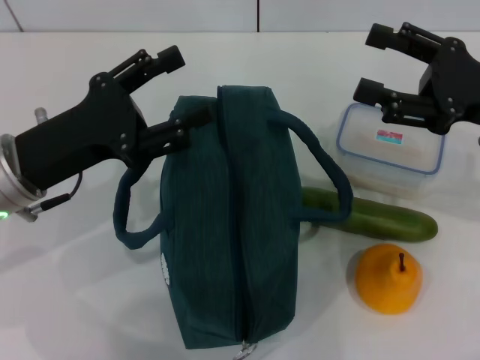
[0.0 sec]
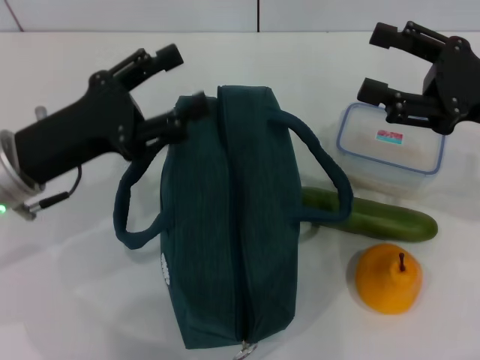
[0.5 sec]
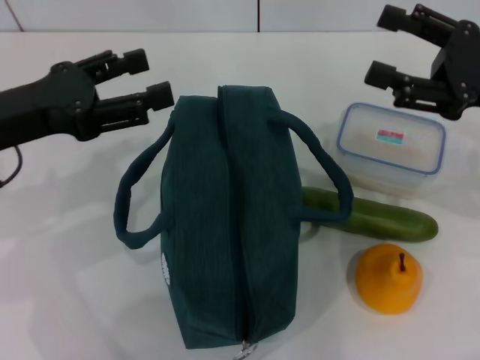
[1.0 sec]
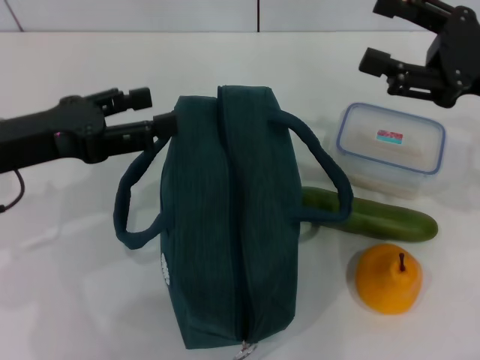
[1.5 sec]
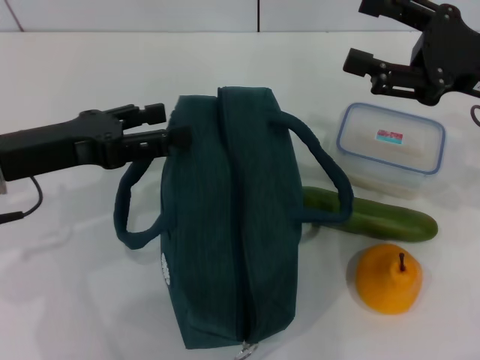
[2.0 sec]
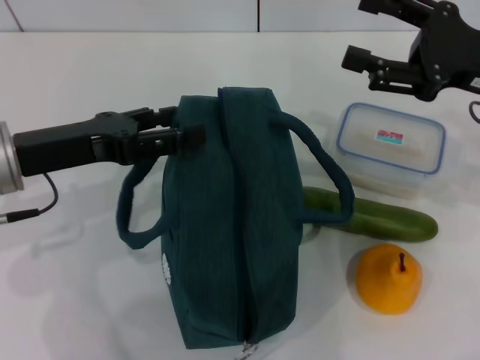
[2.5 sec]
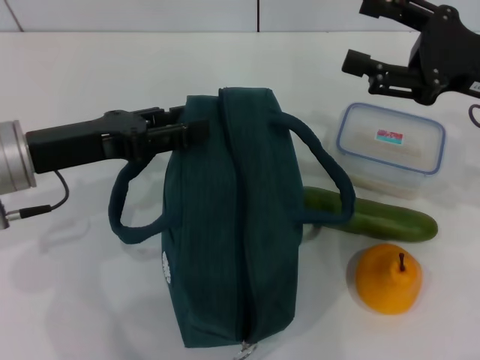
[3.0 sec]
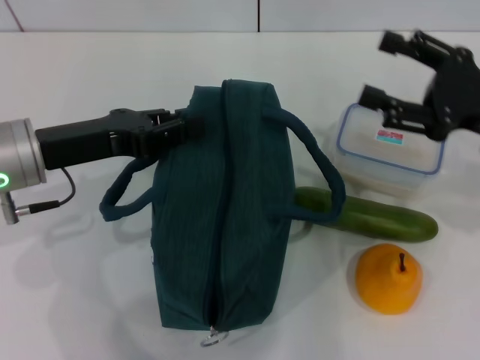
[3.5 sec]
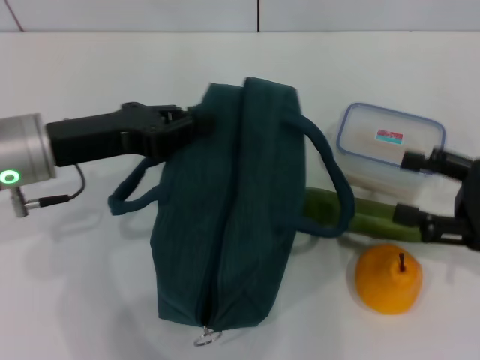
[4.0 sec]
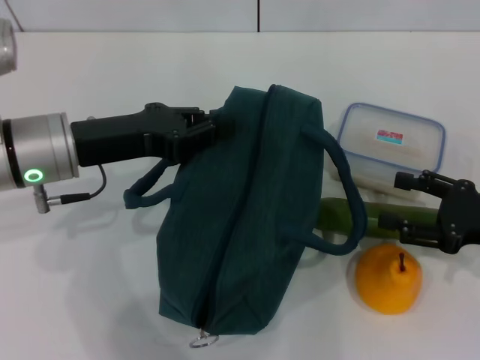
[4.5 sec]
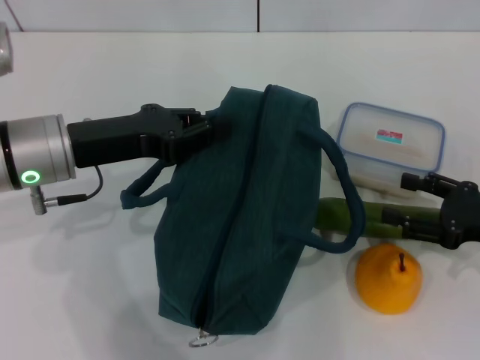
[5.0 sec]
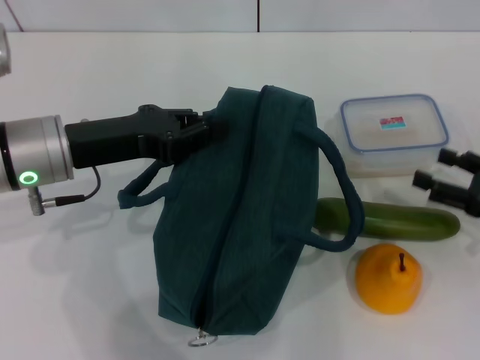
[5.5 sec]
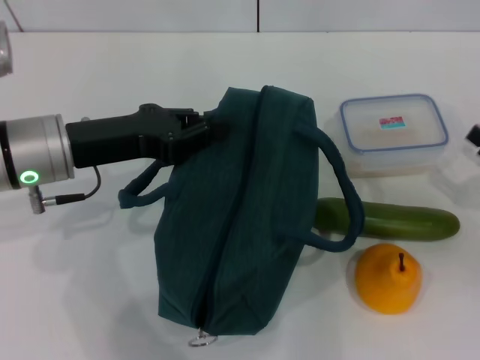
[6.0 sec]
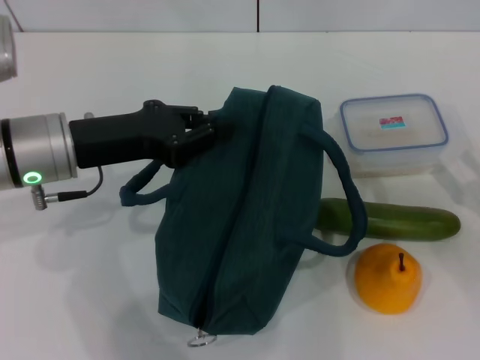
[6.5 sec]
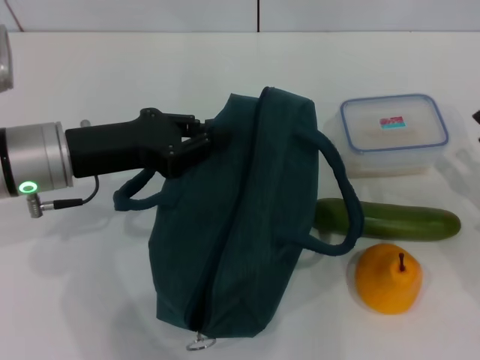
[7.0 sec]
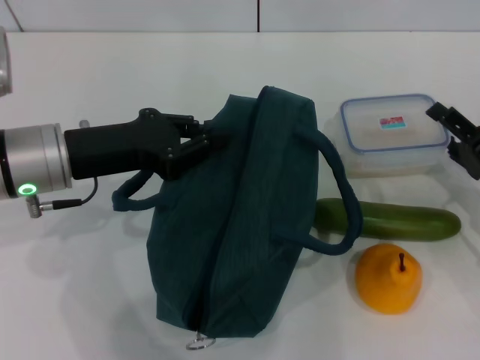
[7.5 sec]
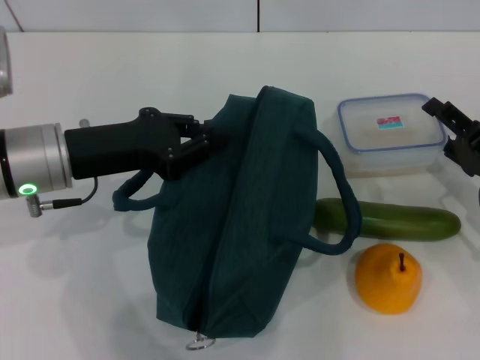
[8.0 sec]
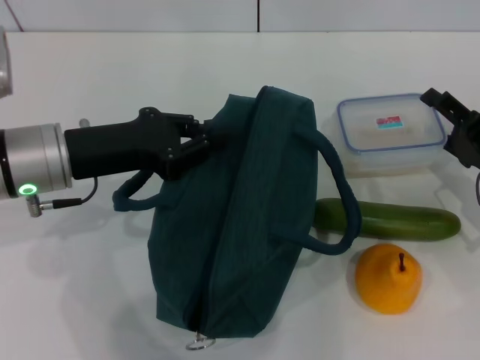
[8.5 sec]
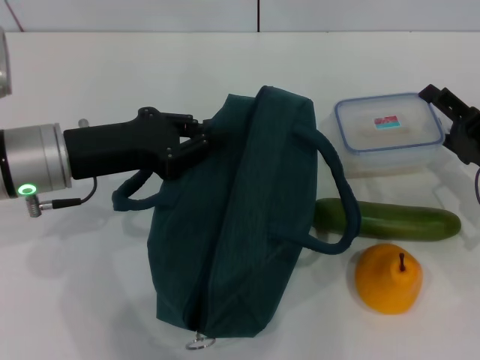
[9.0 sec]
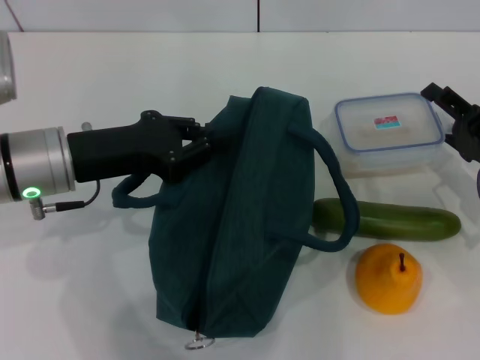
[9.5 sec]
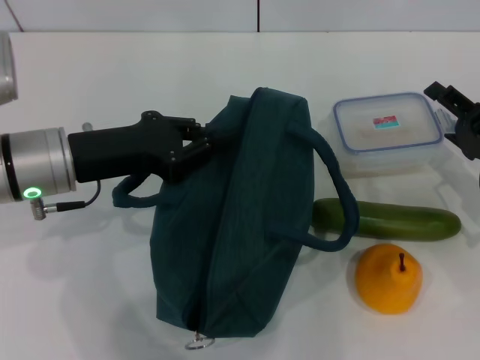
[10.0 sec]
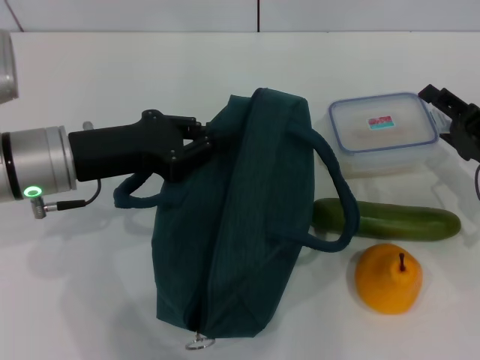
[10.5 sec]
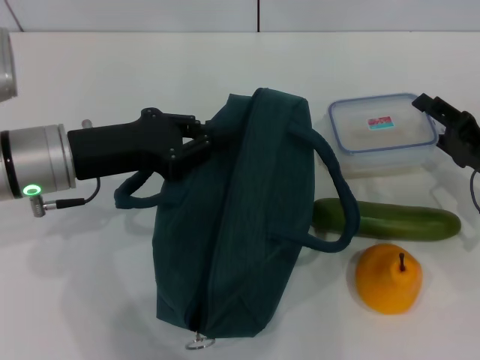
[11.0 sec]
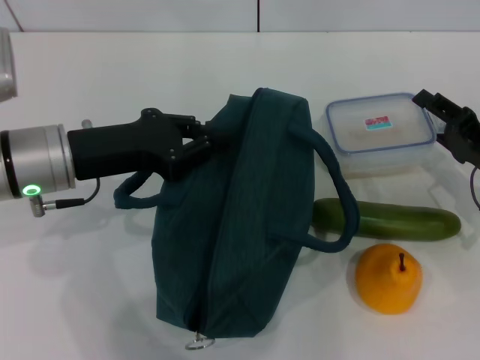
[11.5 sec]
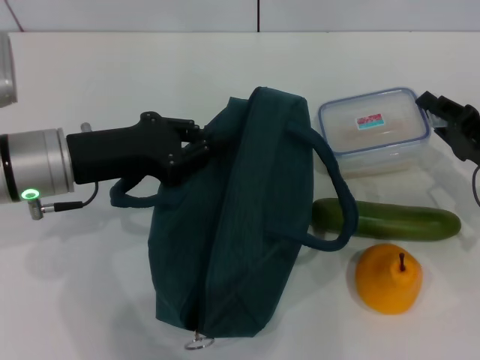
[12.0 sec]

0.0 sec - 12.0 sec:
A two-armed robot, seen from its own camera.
Step, 0.0 sec - 5.5 sec: Hold the lunch bag with your left hand.
2.0 sec - 4.0 sec: The left gripper closes up. Meanwhile the right gripper is displaced backward, downward and to the right by approximately 10 cm.
4.0 sec - 6.0 sec: The right gripper ends up some 5 cm from where it was.
6.0 sec - 8.0 sec: The right gripper heads to the left, covering some 5 cm.
8.0 sec - 10.0 sec: The grippers stay close to where they were, moving slightly.
10.0 sec - 12.0 sec: The right gripper closes its fingers.

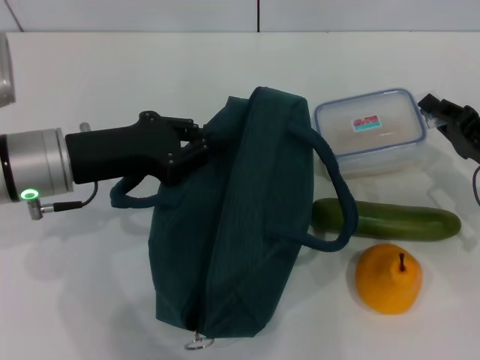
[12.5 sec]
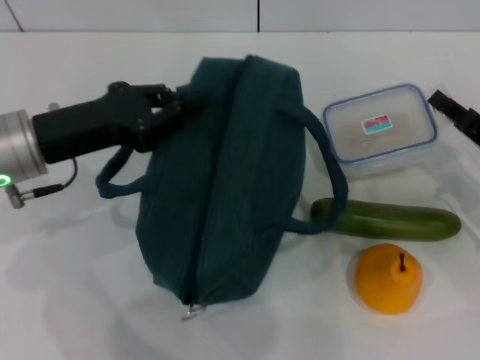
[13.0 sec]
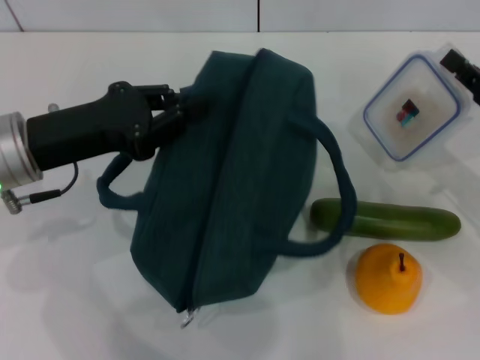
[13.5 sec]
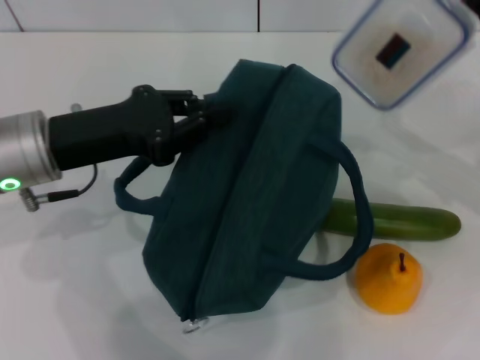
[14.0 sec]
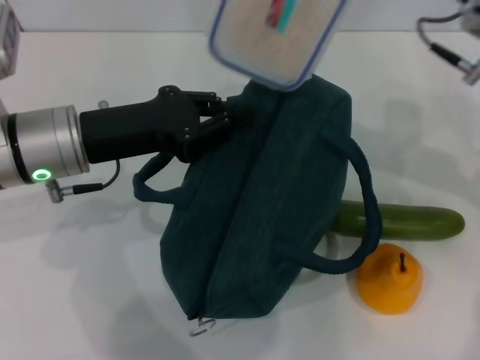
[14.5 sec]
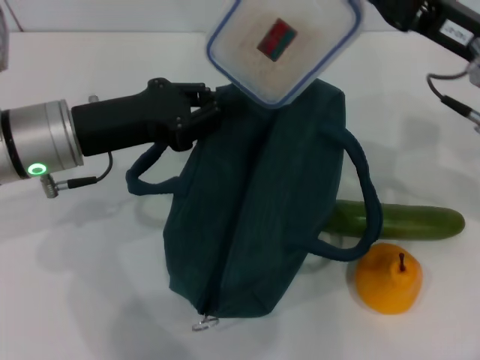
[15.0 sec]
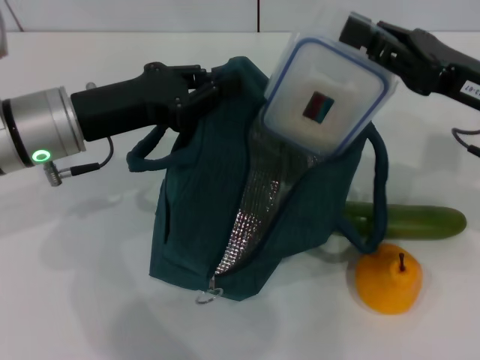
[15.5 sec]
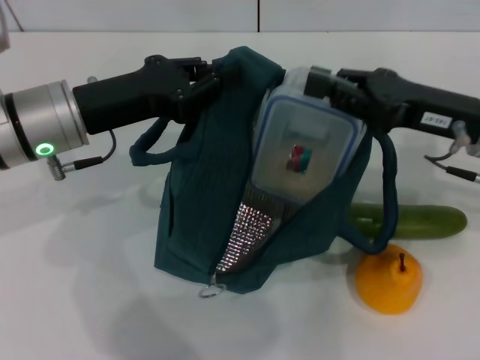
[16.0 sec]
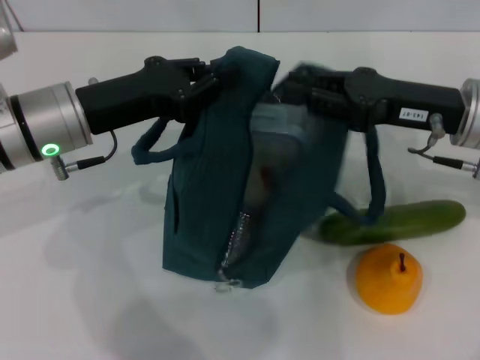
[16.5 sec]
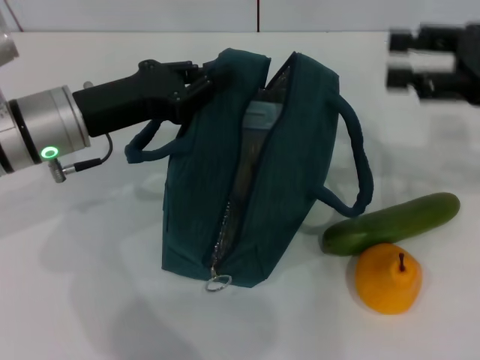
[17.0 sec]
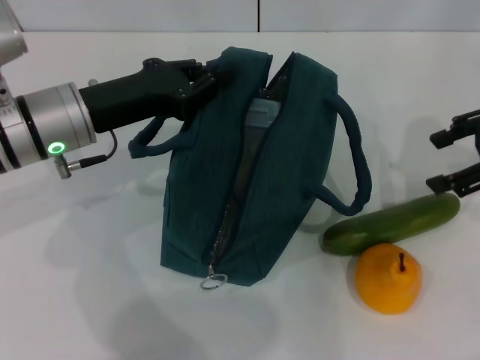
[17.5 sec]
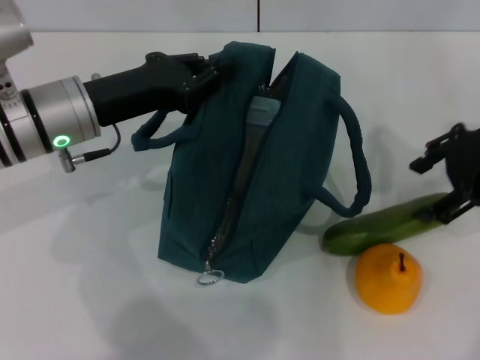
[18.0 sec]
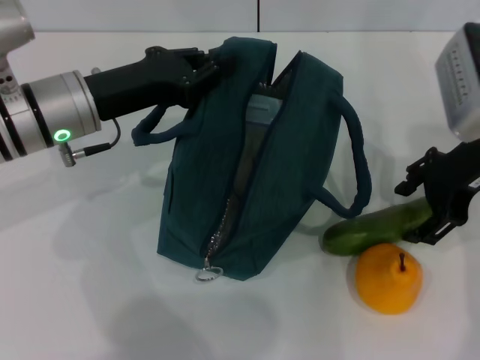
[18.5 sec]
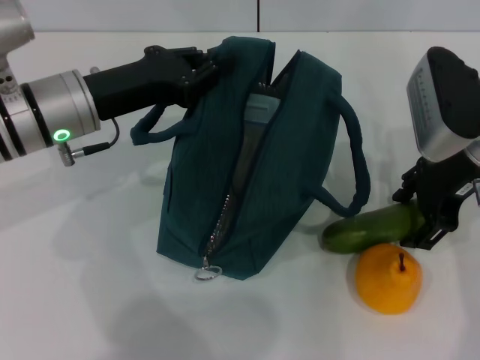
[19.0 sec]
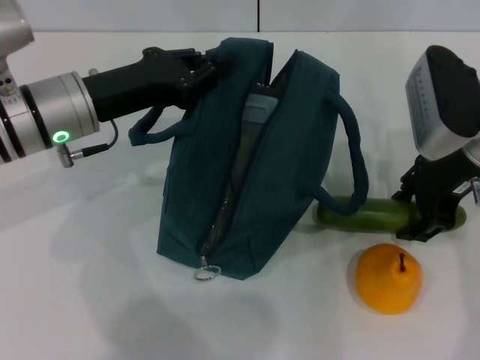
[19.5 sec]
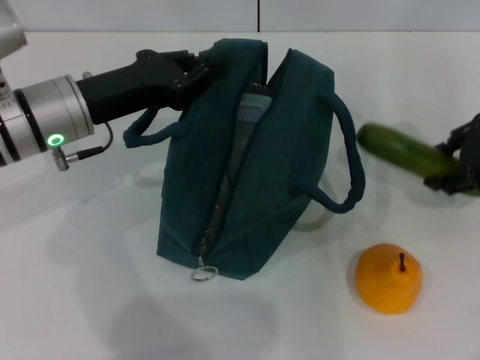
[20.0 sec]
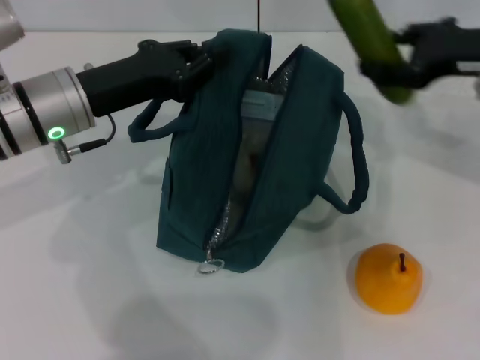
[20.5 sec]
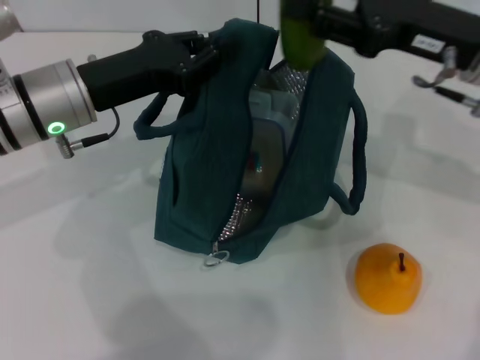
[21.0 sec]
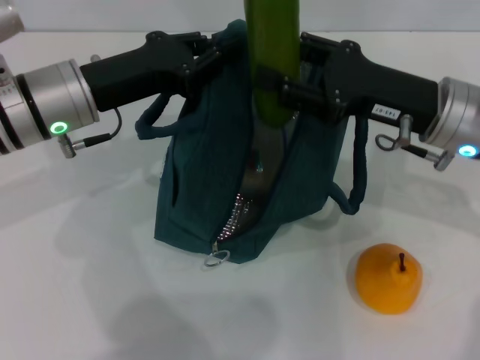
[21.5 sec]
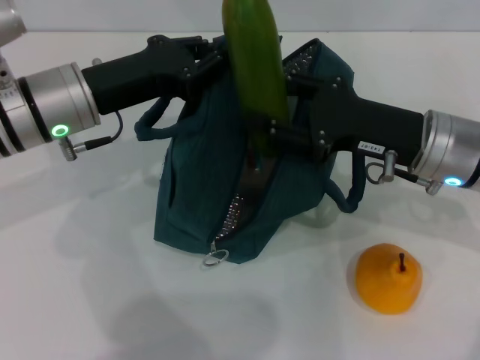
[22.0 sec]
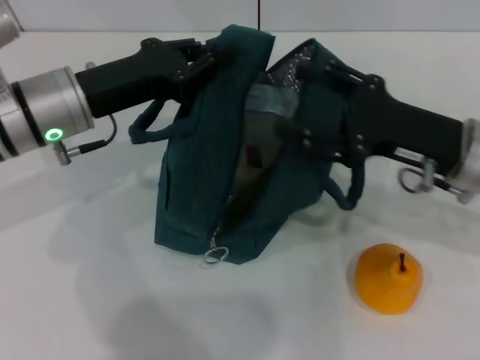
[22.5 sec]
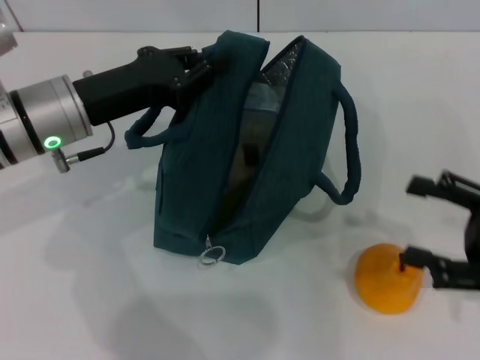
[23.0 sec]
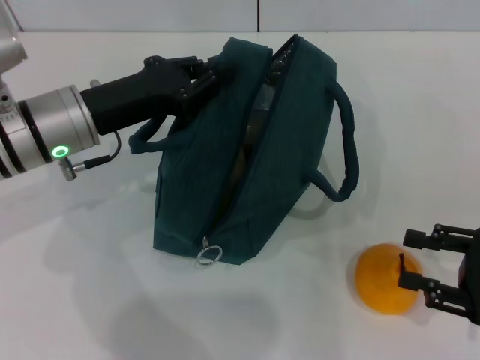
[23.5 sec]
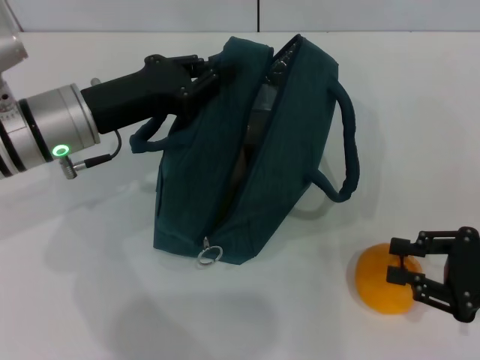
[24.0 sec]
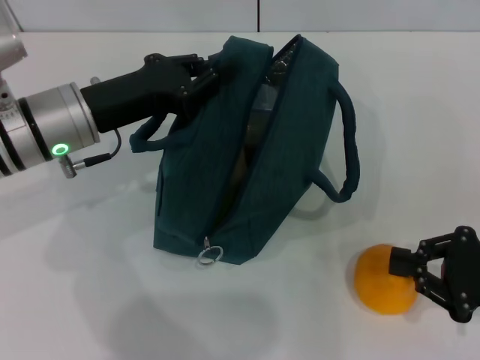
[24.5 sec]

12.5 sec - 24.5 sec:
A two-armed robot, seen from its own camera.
Step, 13.0 sec - 16.5 sec: Place the lunch box into the lunch bag with your right hand.
Step, 17.0 sec - 19.0 sec: Pick up the cucumber with your right hand.
Step, 19.5 sec - 22.5 sec: Put the cucumber into the lunch bag with your right hand.
Step, 23.0 sec - 24.5 sec: Grab the pear with your right hand.
12.5 sec - 14.5 sec: The right gripper is displaced upward and to the left by about 20 cm.
14.5 sec - 16.5 sec: The right gripper travels downward by approximately 5 cm.
16.5 sec - 18.5 sec: The right gripper reaches roughly 10 cm to the right, then returns, and opens up.
20.5 sec - 22.5 sec: The right gripper is displaced downward, backward and to the left by about 10 cm.
22.5 sec - 24.5 sec: The right gripper heads to the right, backward and downward, covering roughly 15 cm, and closes.

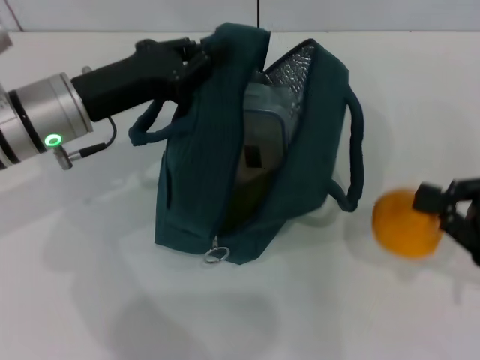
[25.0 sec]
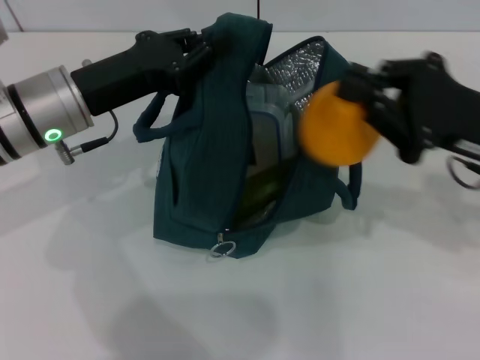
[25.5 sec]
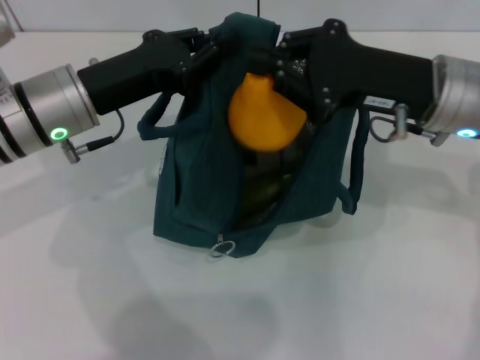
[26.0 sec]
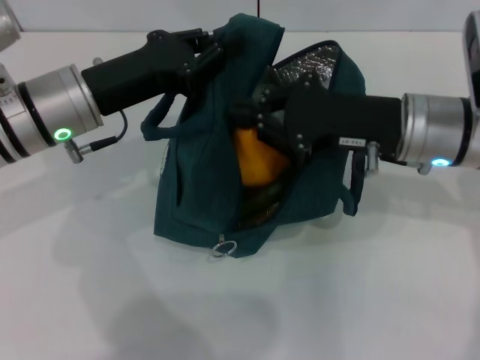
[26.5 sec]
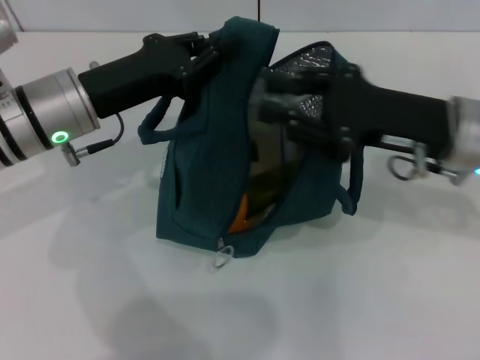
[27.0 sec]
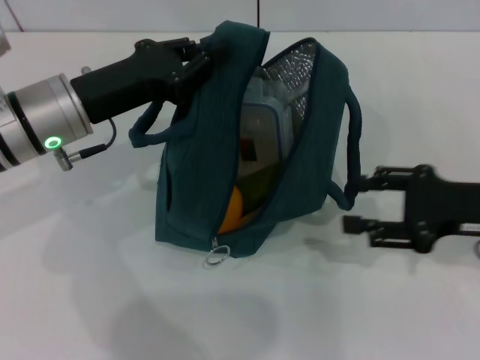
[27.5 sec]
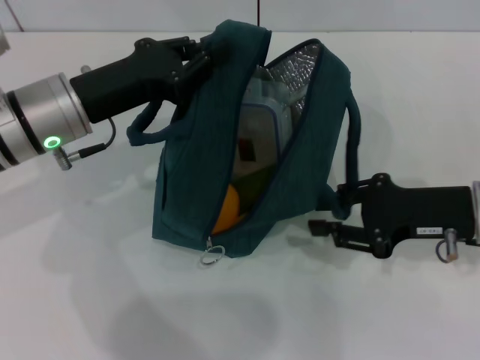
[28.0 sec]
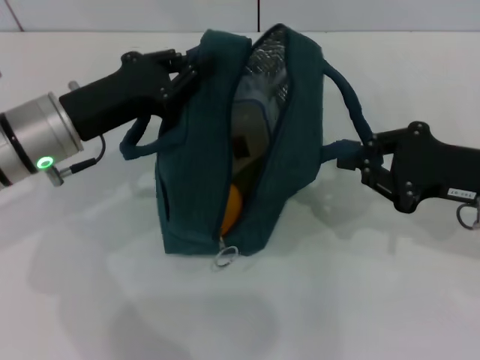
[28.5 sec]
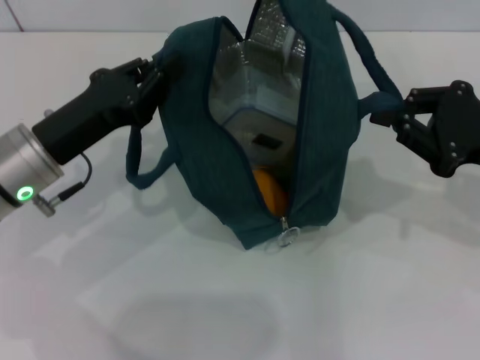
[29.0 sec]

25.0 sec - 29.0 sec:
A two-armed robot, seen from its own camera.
25.0 sec - 27.0 sec: The right gripper goes some 15 cm to the left, forward and upward.
27.0 sec - 29.0 sec: The left gripper shifts by some 5 cm. The right gripper moves left and right over roughly 10 cm, changing direction 2 times, and opens and closes again.
